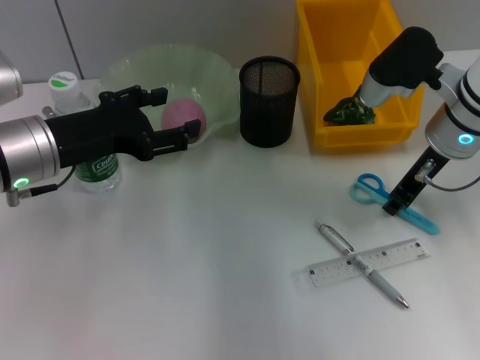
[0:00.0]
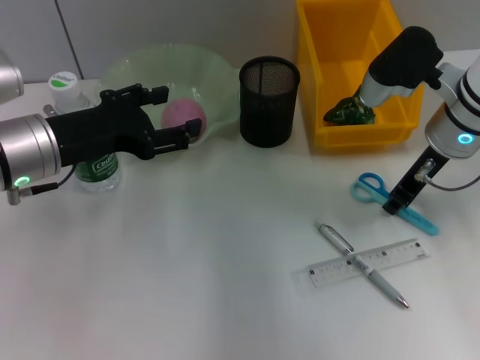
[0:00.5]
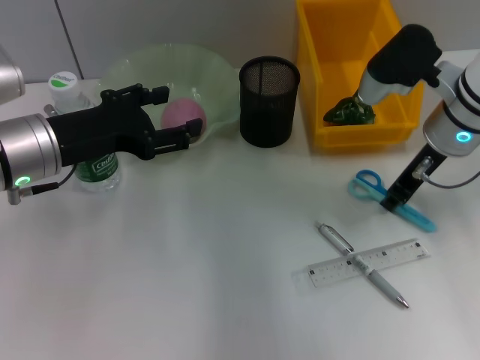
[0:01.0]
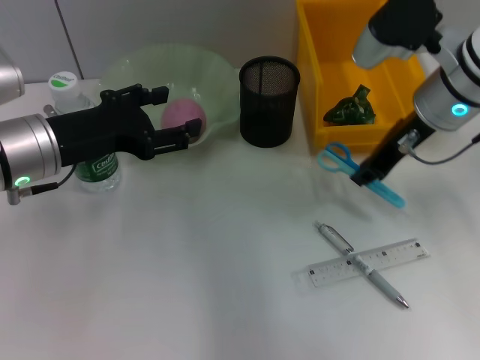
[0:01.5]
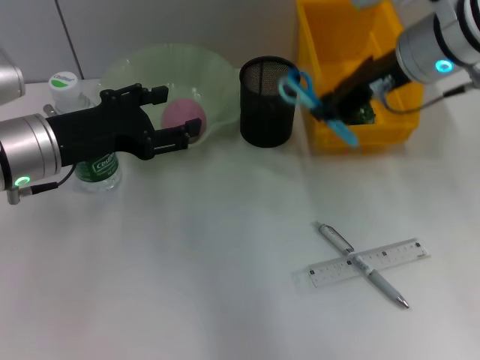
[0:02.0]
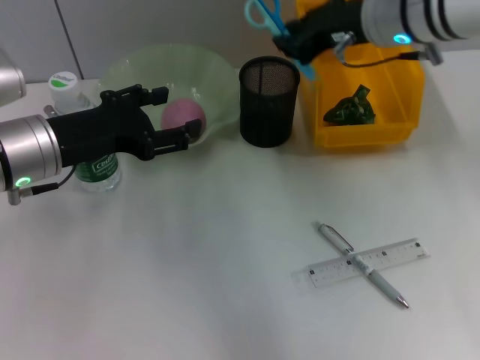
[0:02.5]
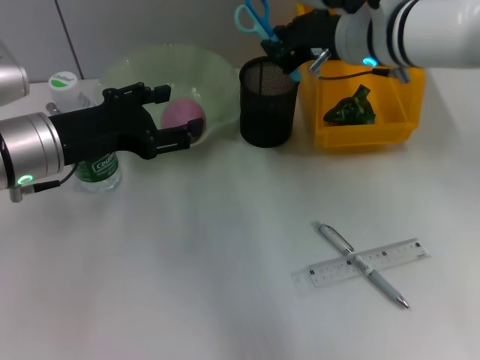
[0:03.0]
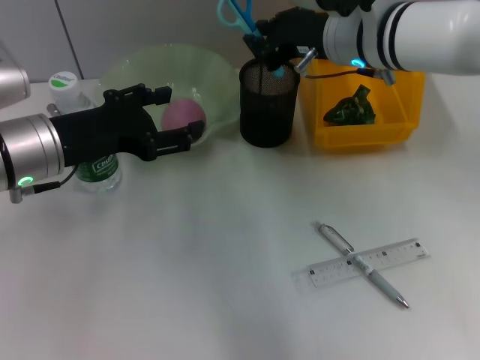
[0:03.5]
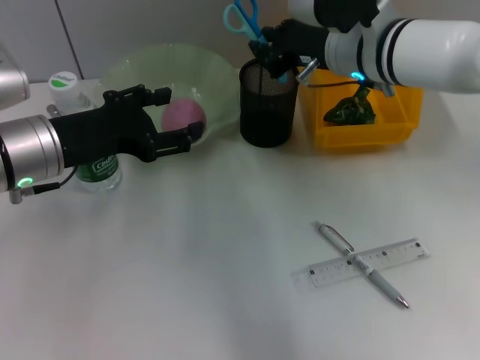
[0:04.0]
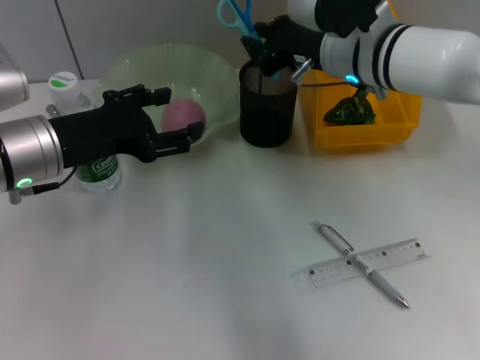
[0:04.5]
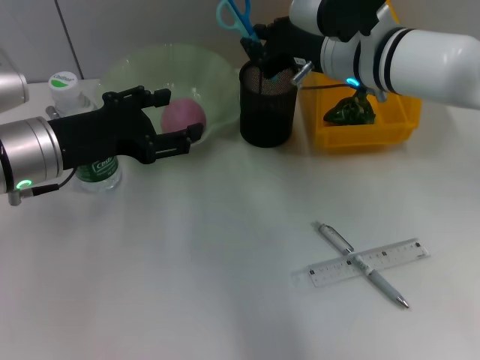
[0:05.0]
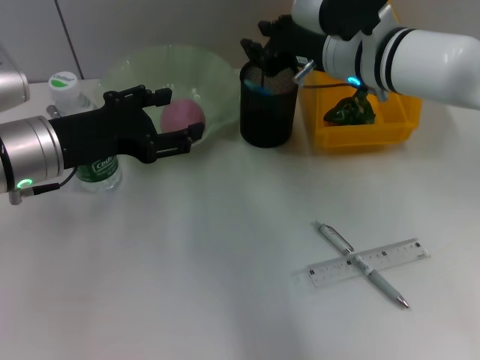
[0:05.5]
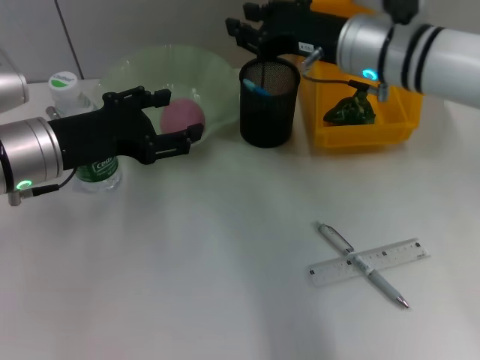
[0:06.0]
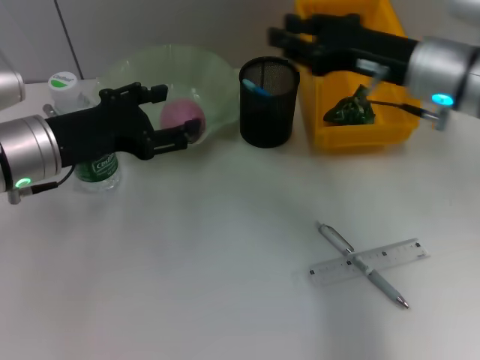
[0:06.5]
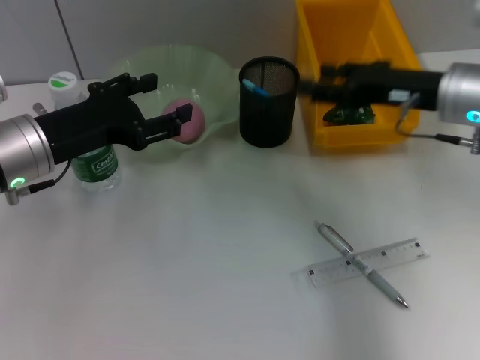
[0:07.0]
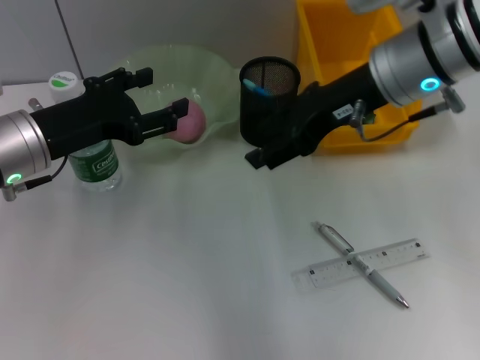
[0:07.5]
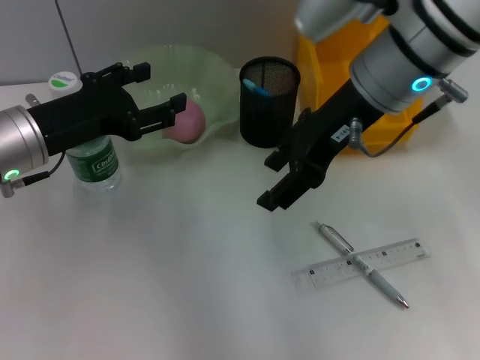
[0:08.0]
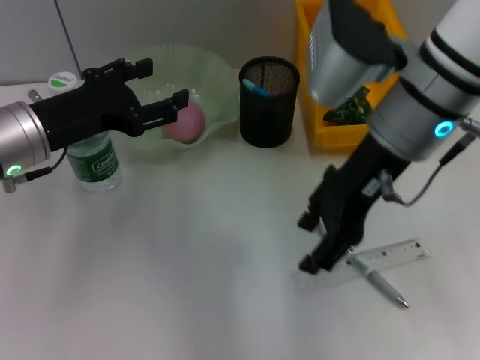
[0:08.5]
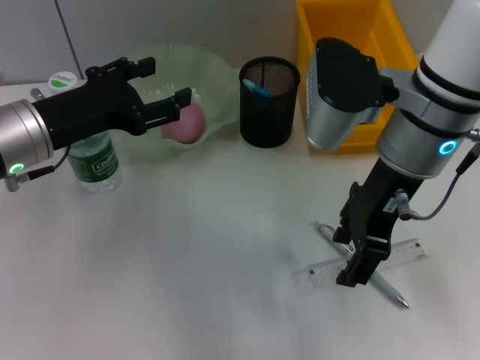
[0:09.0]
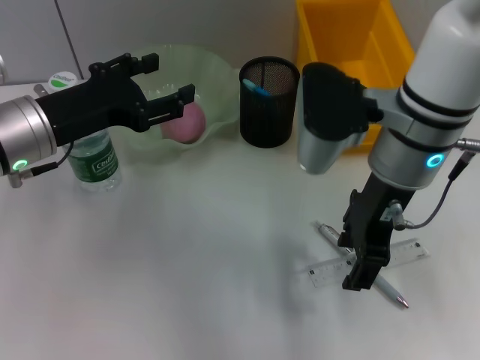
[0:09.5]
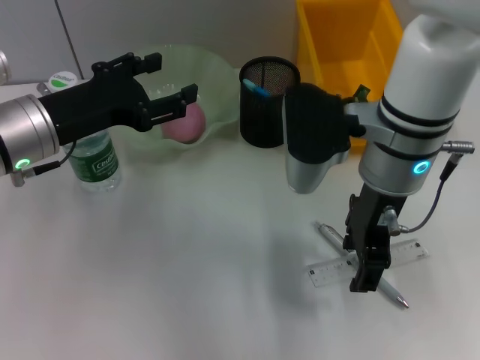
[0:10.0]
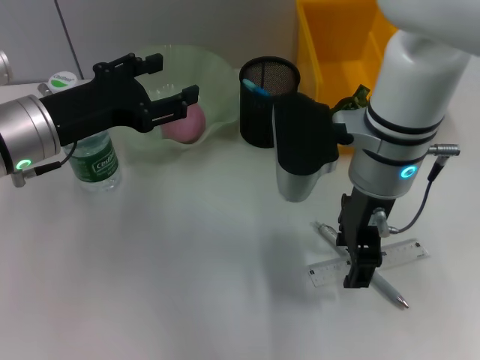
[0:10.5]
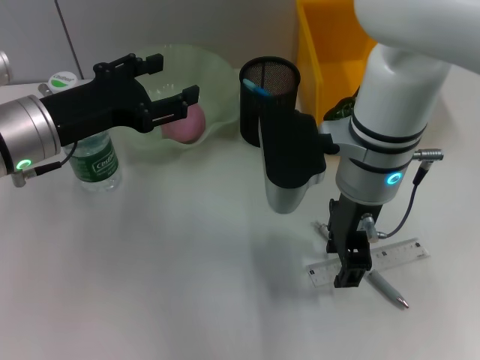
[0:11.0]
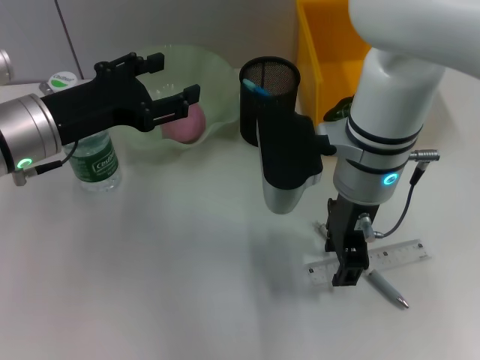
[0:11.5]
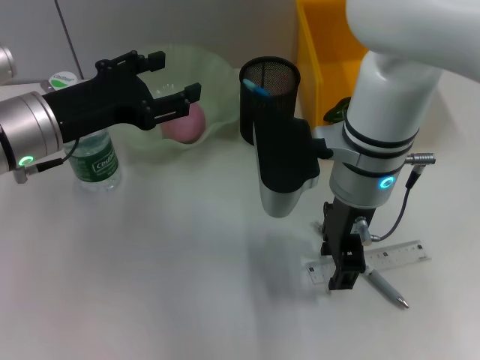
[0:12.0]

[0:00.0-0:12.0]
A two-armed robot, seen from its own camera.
Step, 0:01.0 to 0:05.5: Place the blue scissors into the pen holder with the right hand.
0:00.0 to 0:02.0: The right gripper moves upward, about 10 cm.
0:02.0 to 0:04.0: The right gripper moves some 5 cm.
0:06.0 to 0:08.0: The right gripper is displaced upward by about 5 cm, reaches some 10 cm to the right, then returns, and opens.
0:08.0 to 0:10.0: The right gripper heads downward, covering about 5 cm.
0:10.0 to 0:12.0: There are only small adjustments of the grippers.

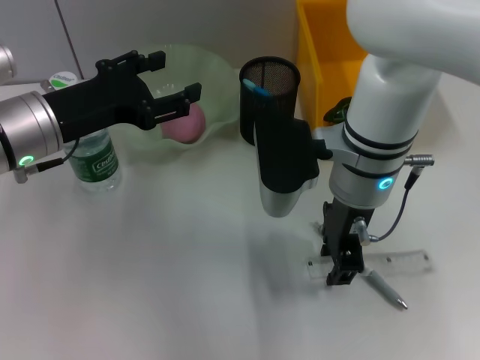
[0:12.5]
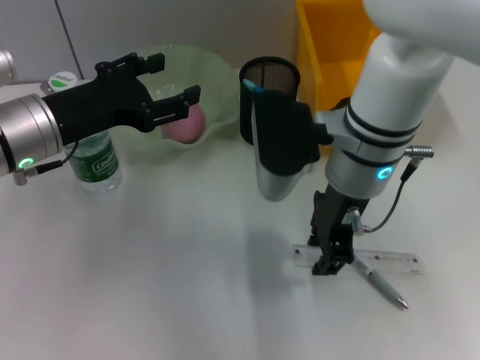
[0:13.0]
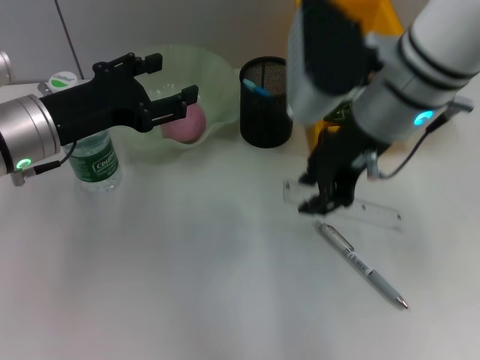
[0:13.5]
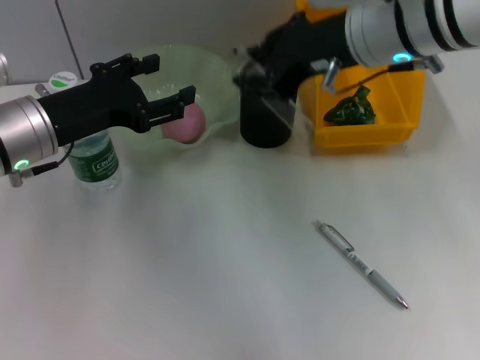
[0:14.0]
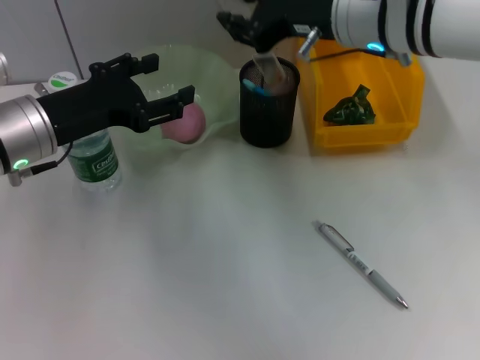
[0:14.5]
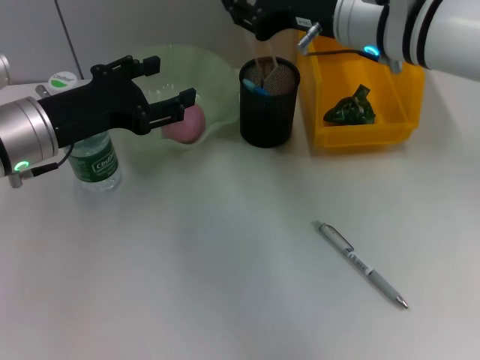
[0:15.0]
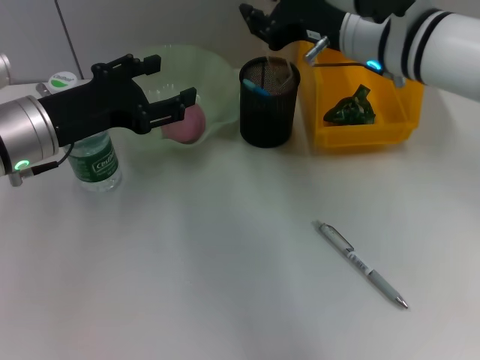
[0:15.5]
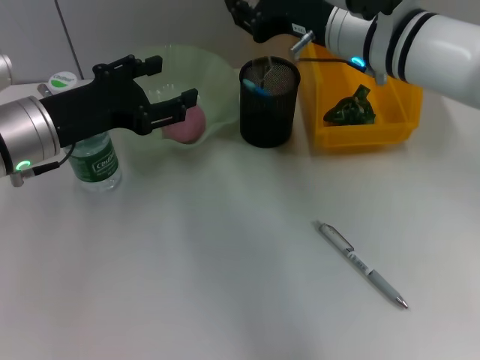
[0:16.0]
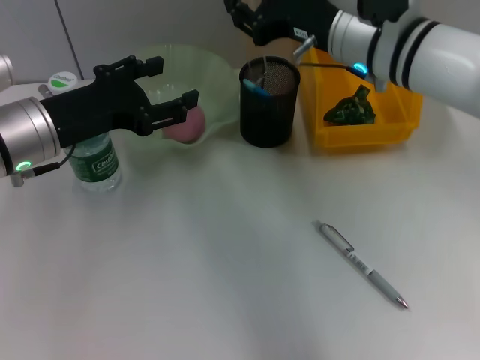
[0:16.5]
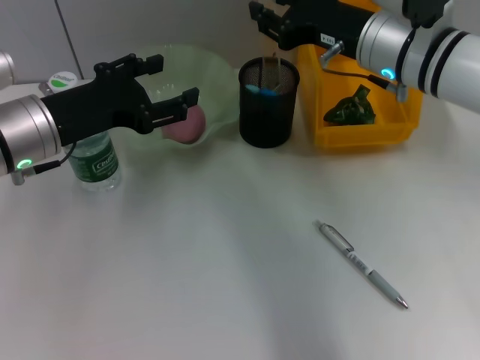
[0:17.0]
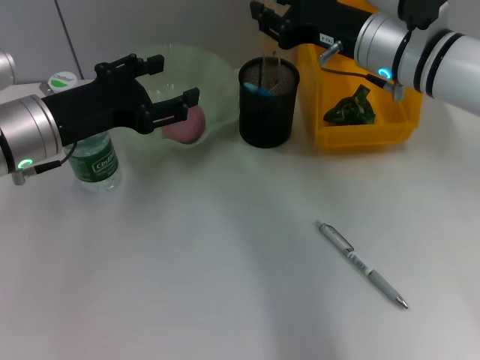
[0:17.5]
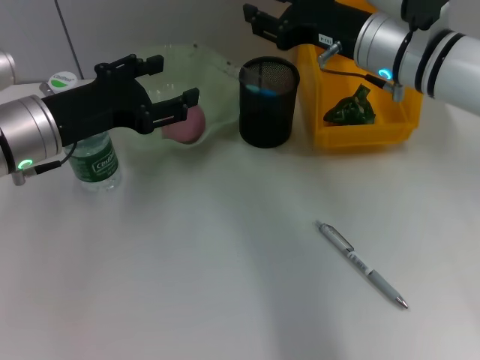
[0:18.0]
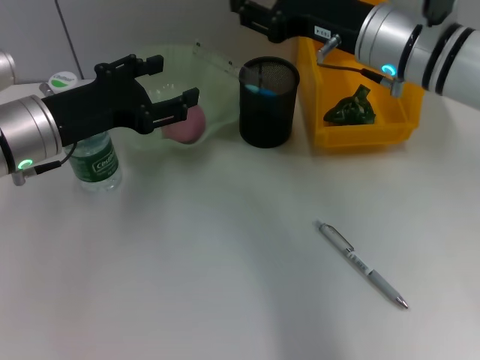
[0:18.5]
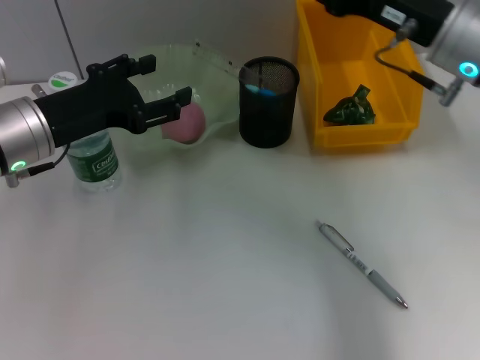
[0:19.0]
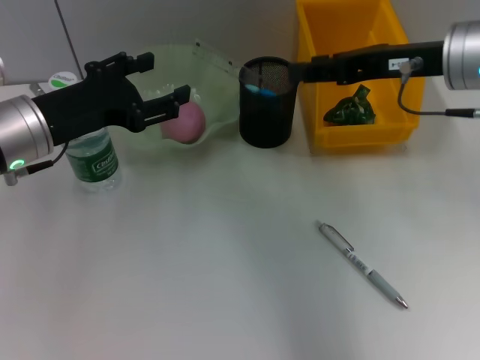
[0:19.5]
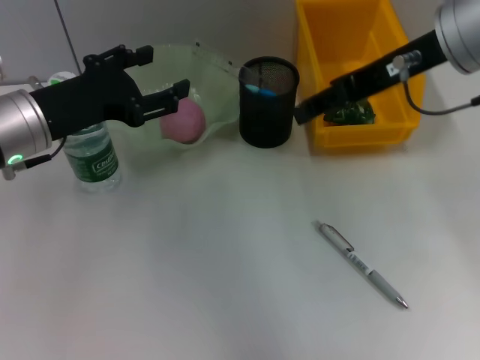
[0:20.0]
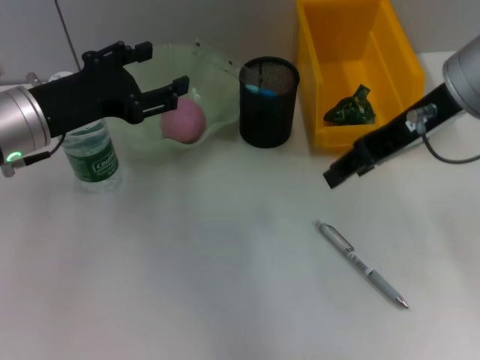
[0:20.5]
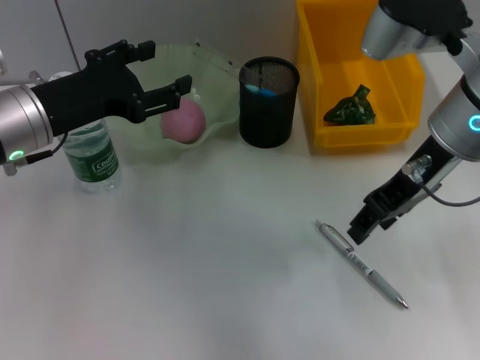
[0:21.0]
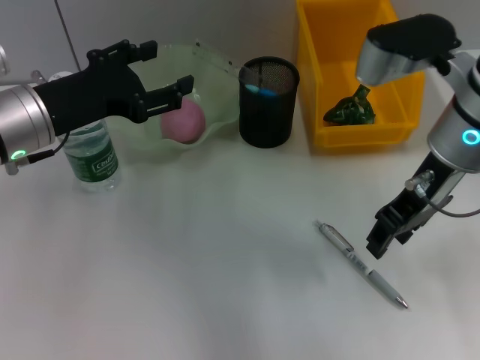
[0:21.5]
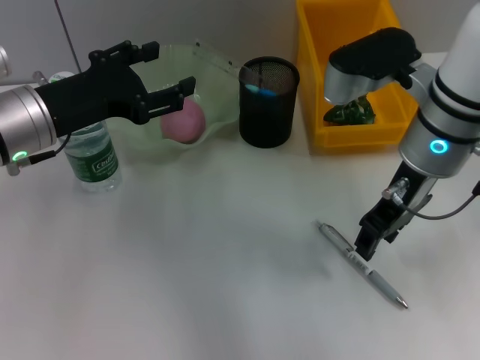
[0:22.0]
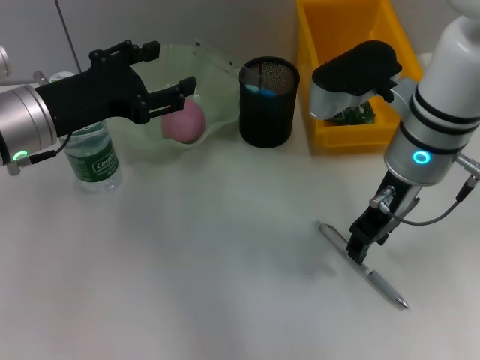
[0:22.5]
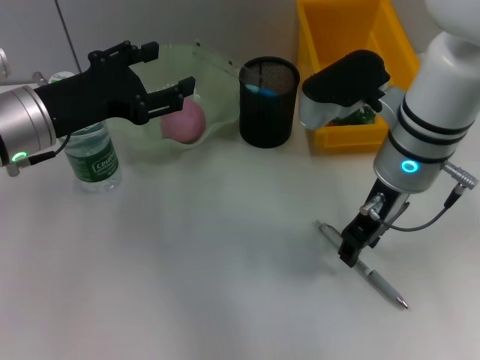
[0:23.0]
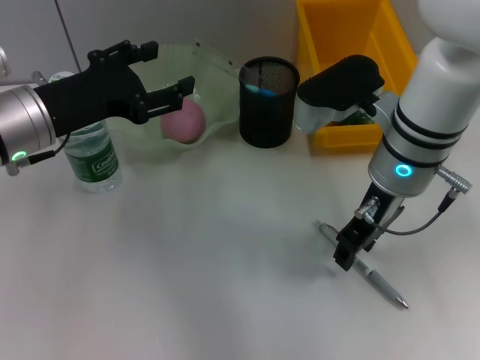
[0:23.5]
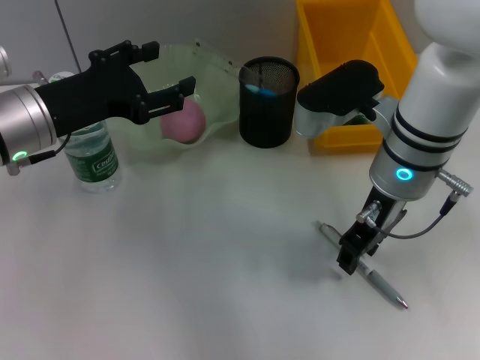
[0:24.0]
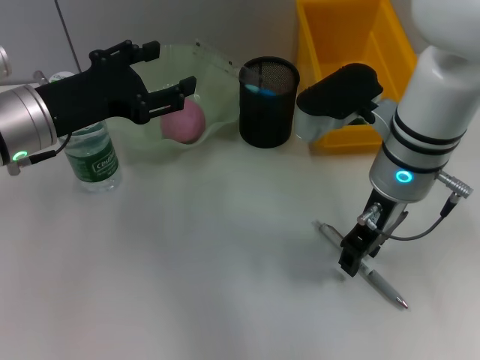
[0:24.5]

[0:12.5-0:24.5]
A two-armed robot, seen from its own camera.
Step, 0:13.0 to 0:18.5: Place the ruler into the pen holder with the right hand.
0:12.5 to 0:14.5: The right gripper goes about 10 cm upward.
0:14.5 to 0:16.5: The right gripper heads downward, covering roughly 5 cm.
0:16.5 to 0:18.5: There are only small adjustments of the grippers.
0:18.5 to 0:20.5: The right gripper heads upward and backward, covering roughly 10 cm.
0:20.5 to 0:22.5: The right gripper heads downward, covering some 10 cm.
0:22.5 to 0:24.5: The grippers move only a little.

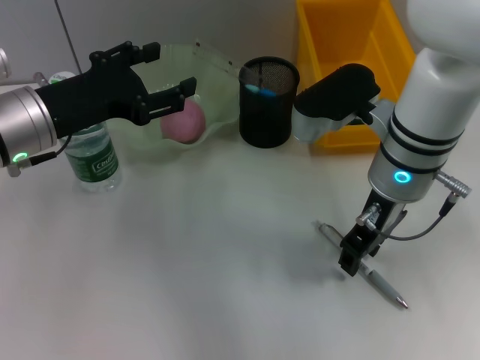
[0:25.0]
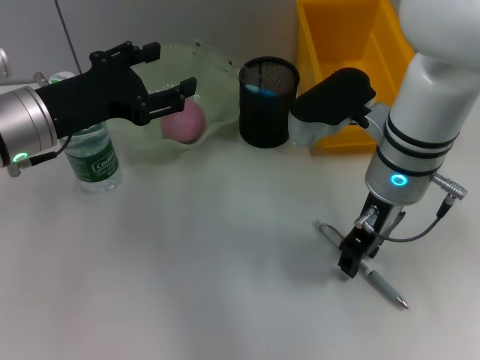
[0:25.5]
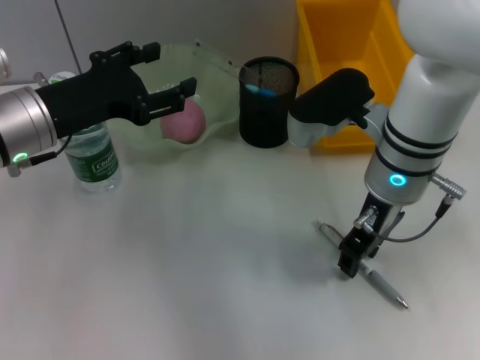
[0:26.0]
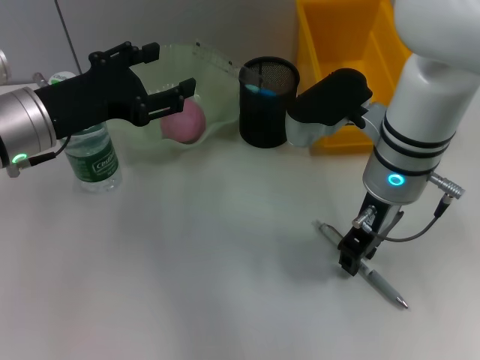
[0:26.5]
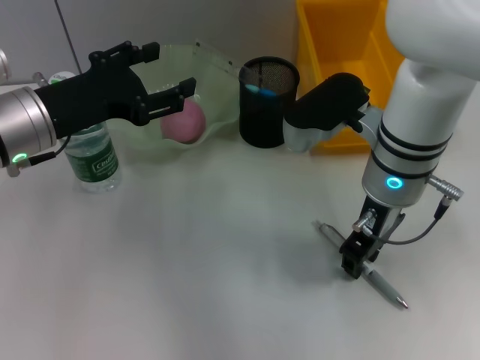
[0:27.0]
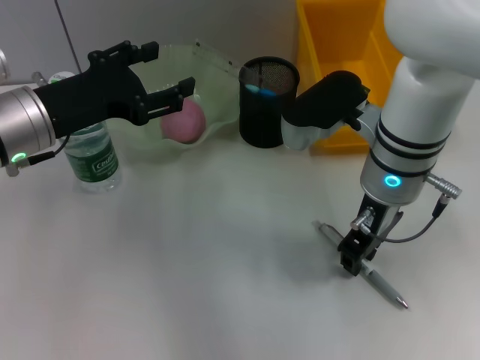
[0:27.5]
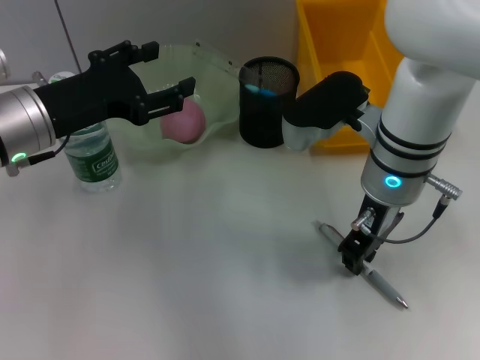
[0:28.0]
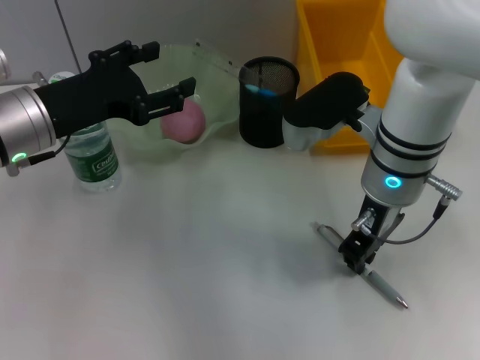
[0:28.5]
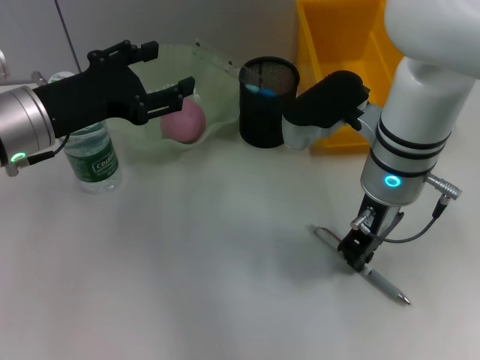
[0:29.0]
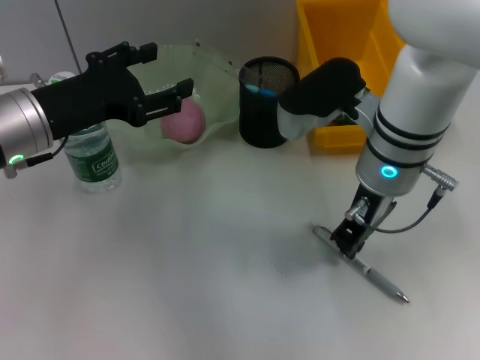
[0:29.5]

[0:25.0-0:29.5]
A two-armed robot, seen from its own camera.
0:25.0 to 0:27.0: Both grippers stay put.
0:27.0 to 0:29.5: The right gripper closes up.
